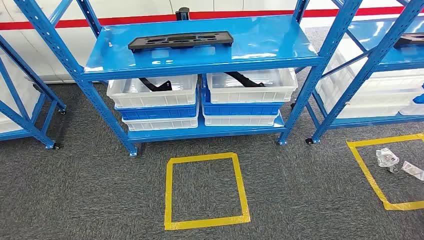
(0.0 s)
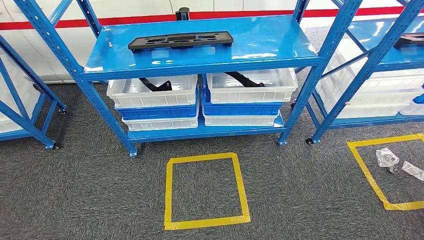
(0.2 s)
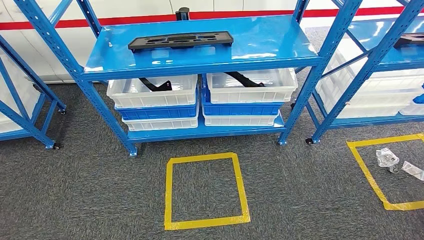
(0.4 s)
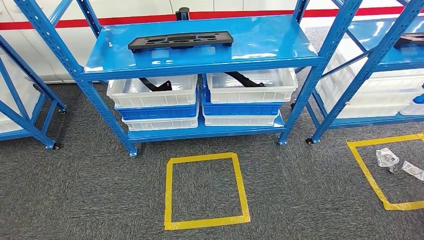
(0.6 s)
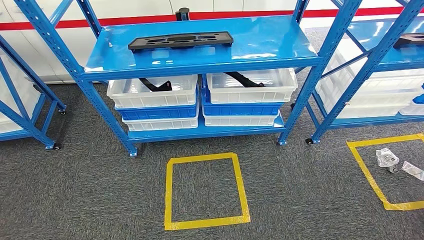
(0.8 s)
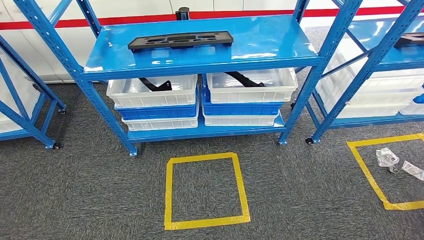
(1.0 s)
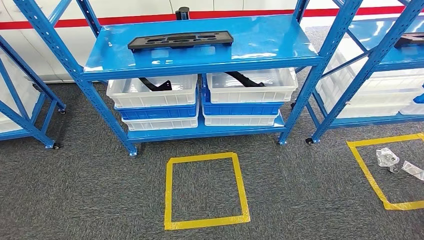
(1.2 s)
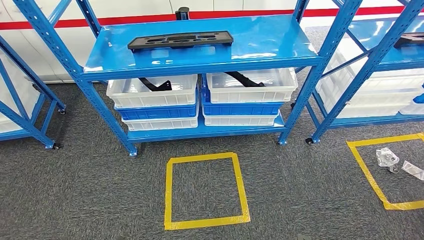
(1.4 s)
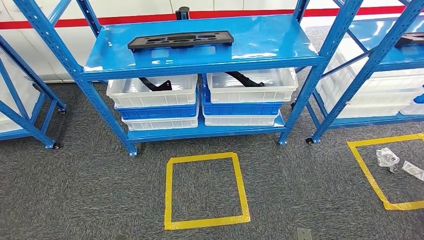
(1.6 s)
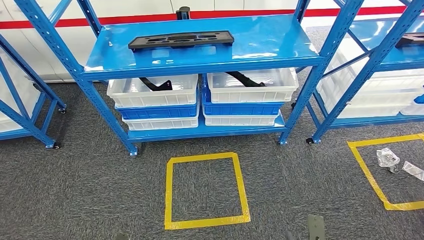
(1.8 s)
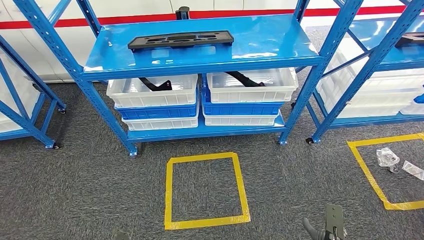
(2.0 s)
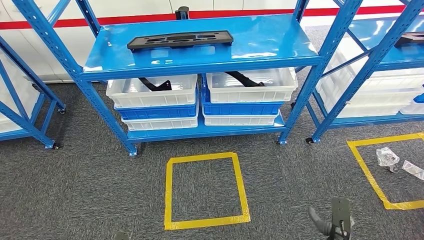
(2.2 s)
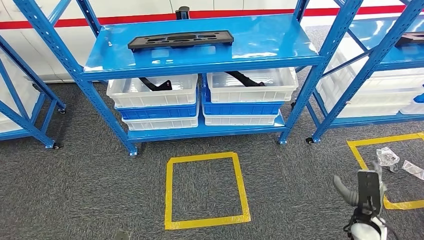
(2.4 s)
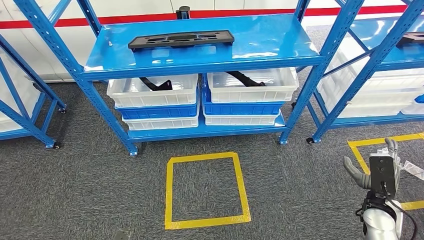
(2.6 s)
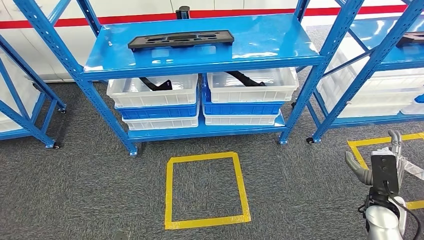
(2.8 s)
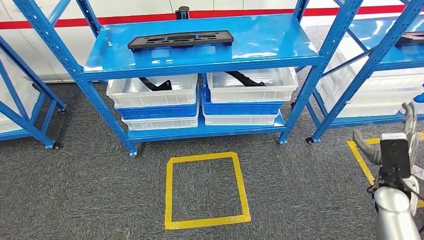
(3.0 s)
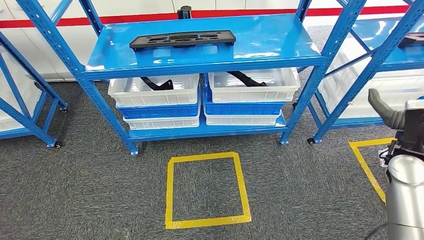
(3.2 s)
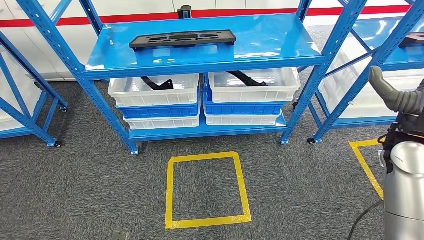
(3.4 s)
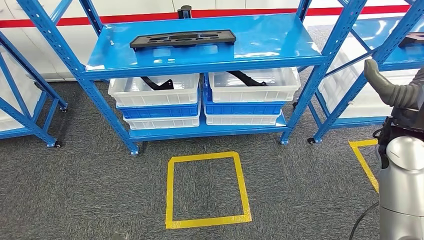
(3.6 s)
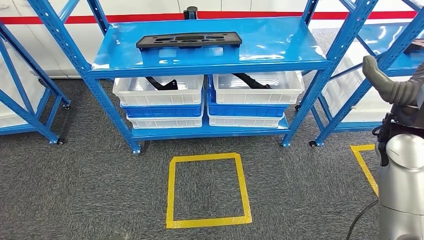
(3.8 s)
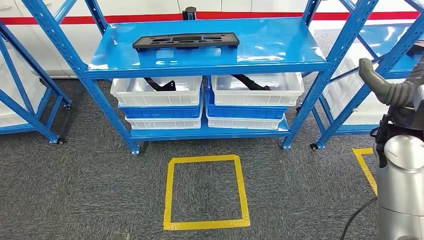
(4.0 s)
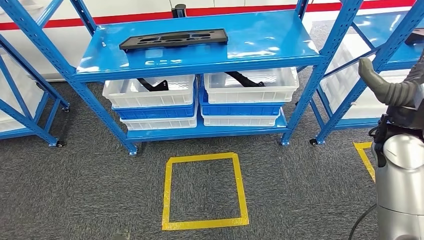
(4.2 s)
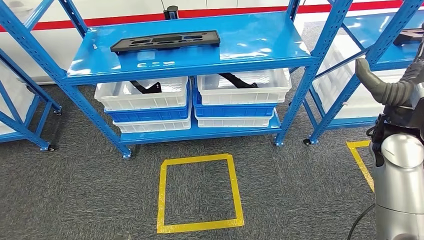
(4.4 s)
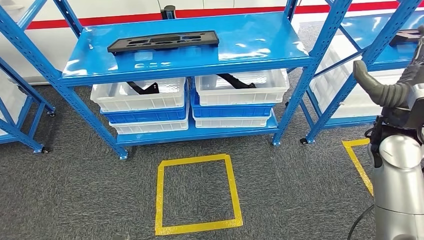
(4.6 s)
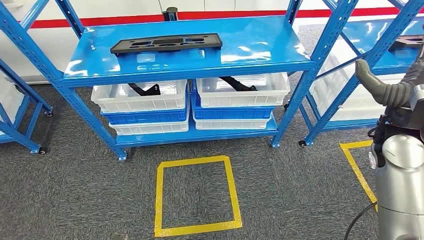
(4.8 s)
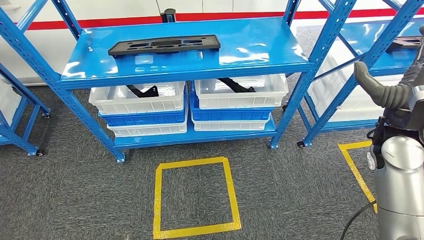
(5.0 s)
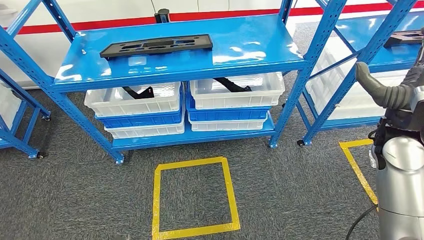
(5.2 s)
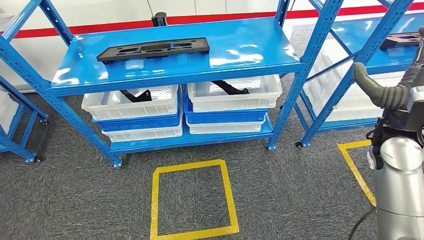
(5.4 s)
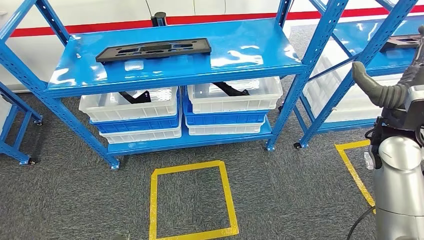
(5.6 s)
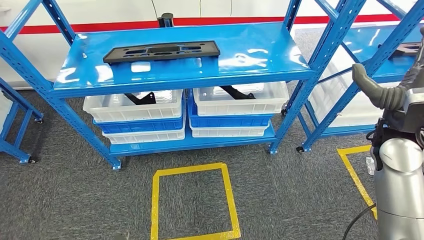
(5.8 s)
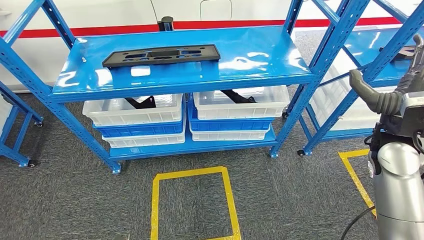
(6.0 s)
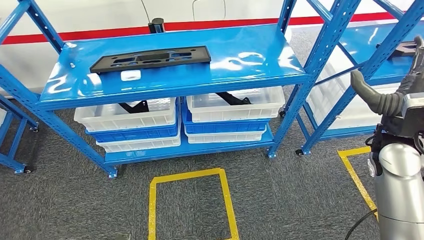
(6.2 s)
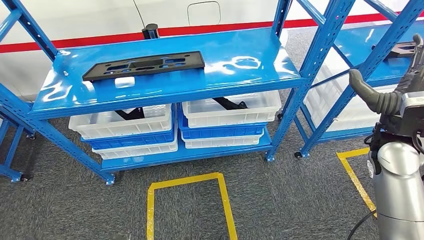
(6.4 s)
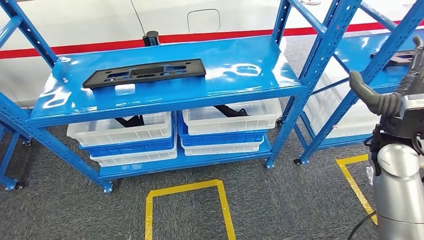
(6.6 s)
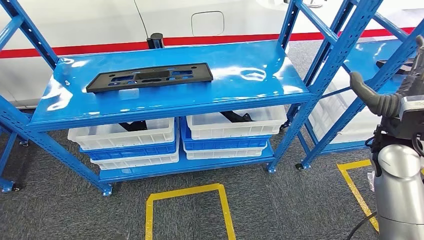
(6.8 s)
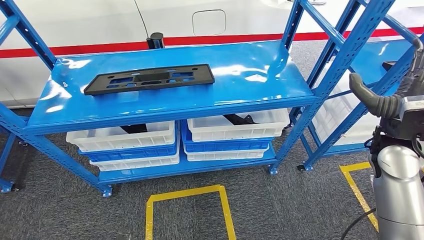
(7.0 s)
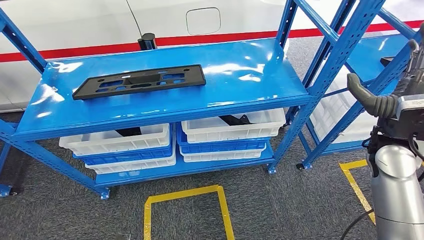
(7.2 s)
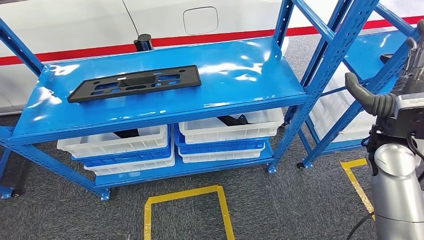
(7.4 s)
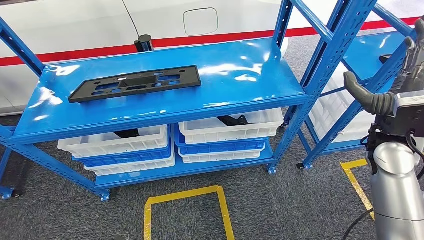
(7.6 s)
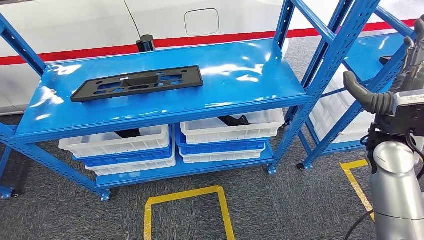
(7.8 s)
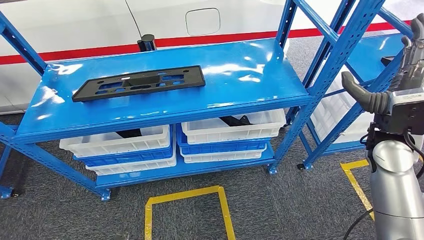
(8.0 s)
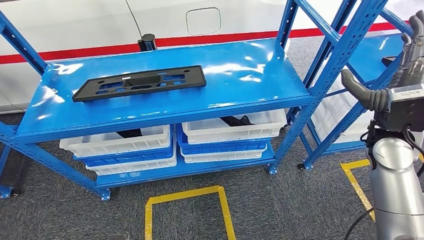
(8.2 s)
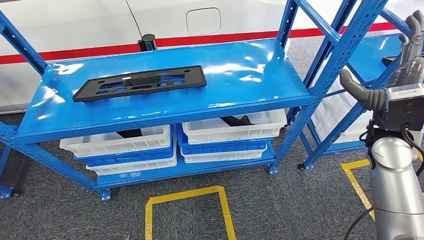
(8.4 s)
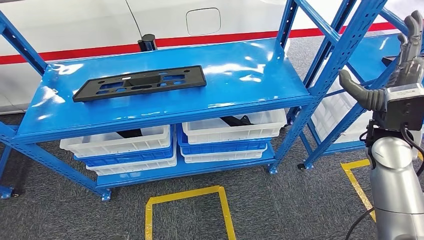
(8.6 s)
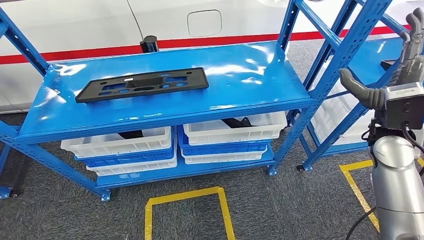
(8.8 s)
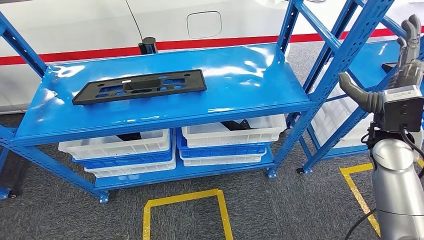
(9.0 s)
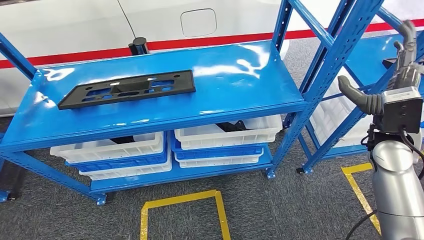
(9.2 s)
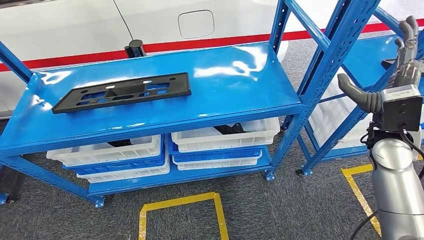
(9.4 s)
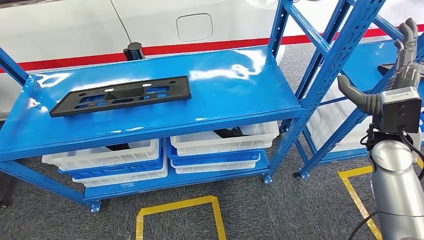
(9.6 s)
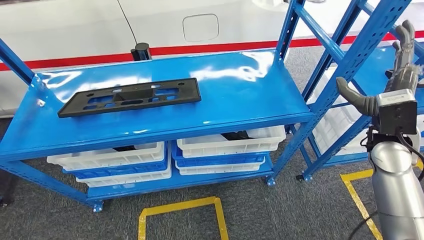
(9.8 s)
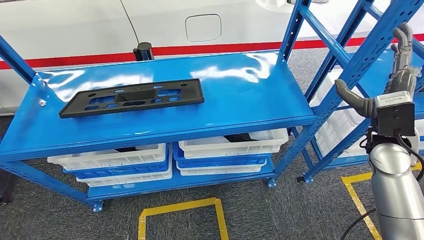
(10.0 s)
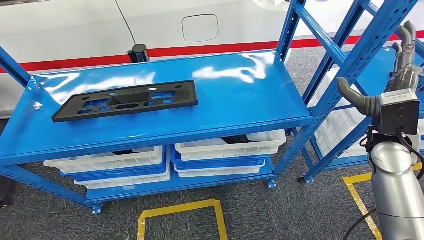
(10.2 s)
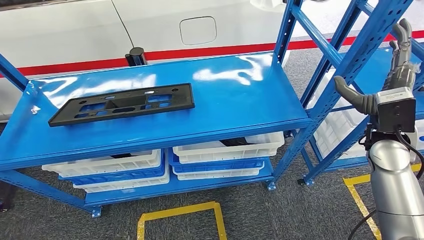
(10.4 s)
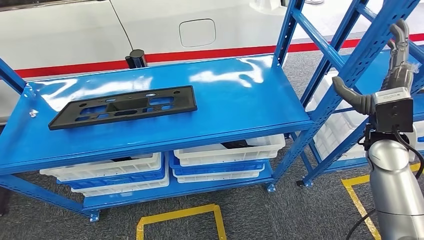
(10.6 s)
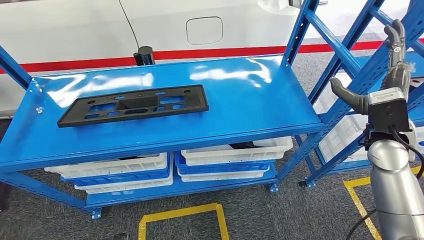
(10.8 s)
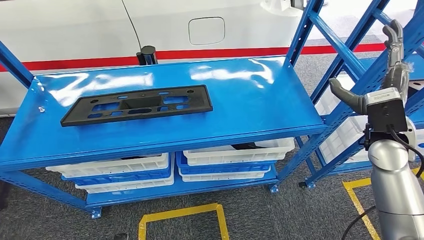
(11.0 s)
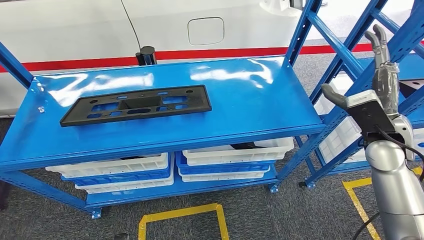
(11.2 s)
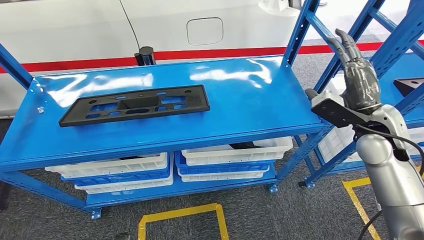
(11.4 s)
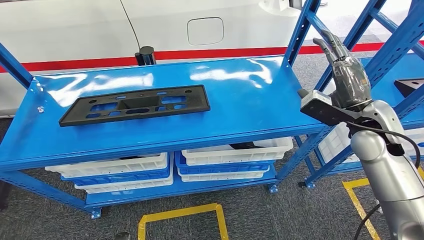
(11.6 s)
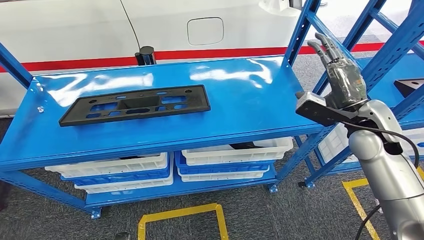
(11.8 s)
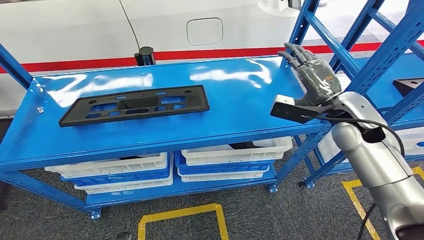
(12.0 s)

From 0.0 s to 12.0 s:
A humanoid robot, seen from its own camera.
From 1.6 s to 3.0 s: The right hand is displaced upward, forward and to the right by some 40 cm.

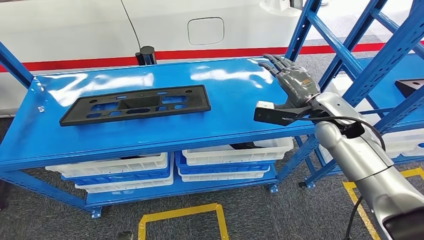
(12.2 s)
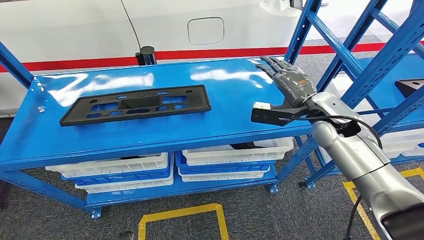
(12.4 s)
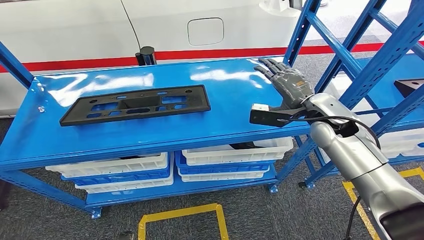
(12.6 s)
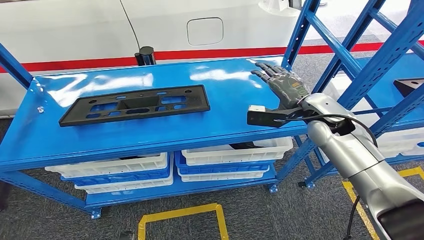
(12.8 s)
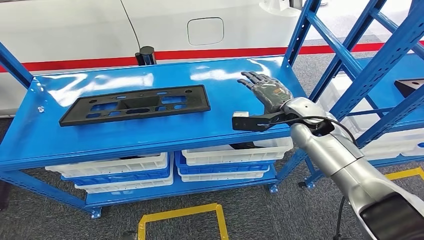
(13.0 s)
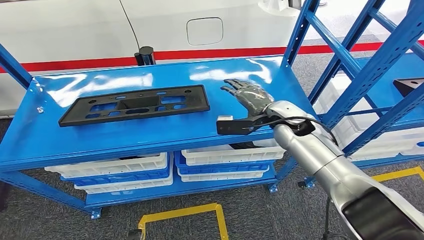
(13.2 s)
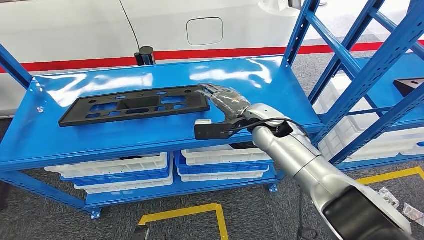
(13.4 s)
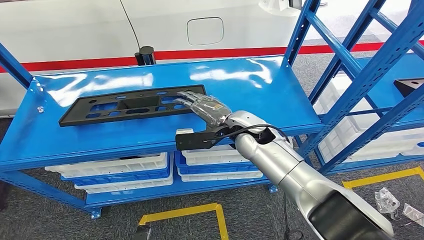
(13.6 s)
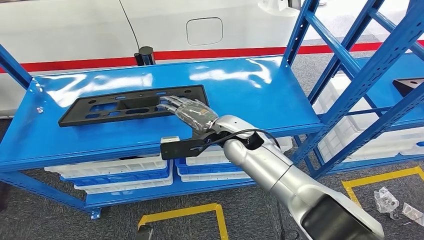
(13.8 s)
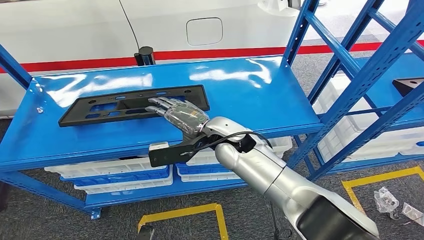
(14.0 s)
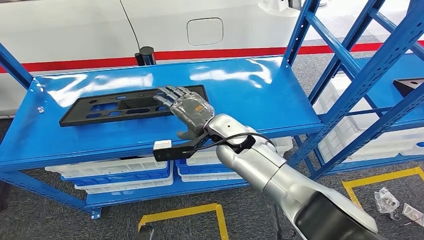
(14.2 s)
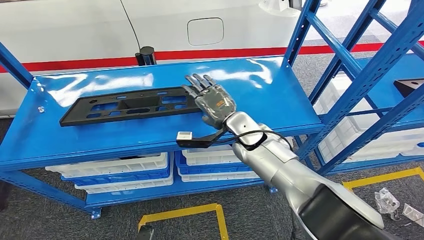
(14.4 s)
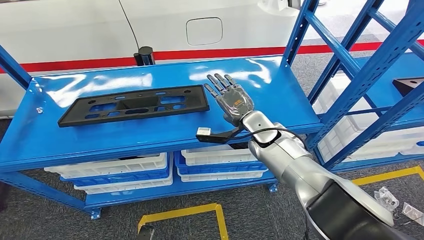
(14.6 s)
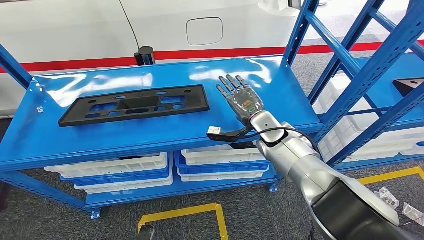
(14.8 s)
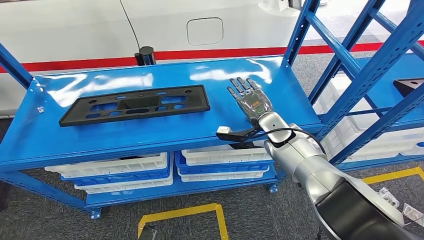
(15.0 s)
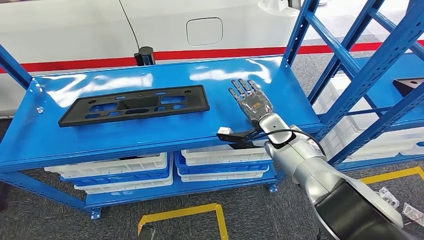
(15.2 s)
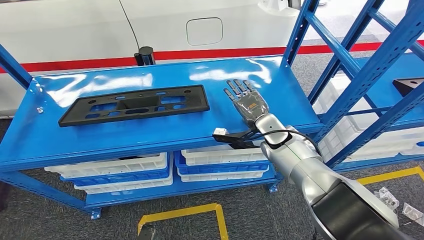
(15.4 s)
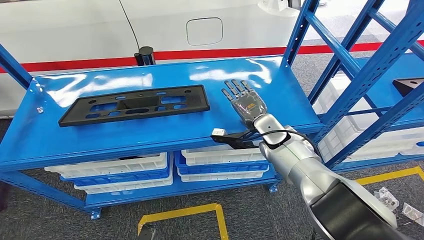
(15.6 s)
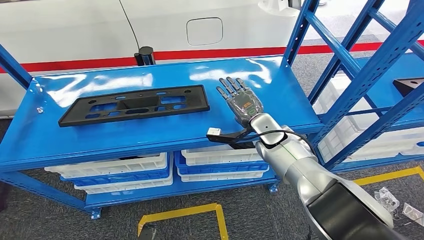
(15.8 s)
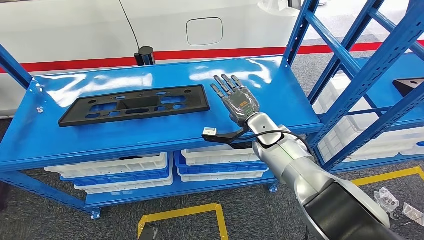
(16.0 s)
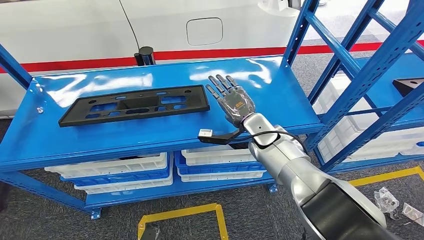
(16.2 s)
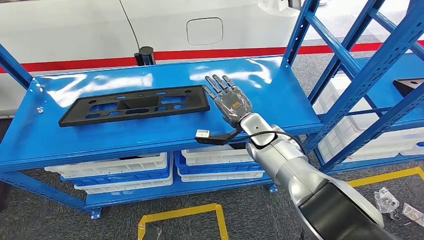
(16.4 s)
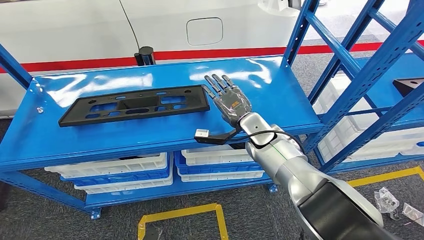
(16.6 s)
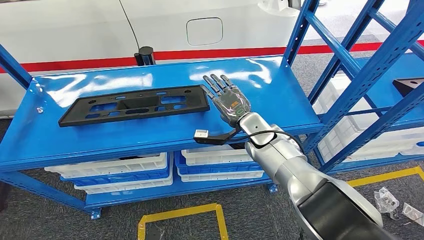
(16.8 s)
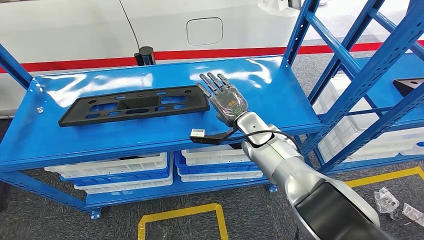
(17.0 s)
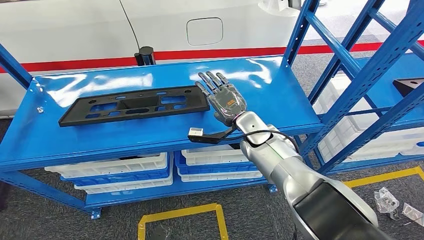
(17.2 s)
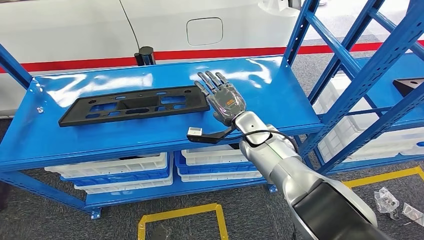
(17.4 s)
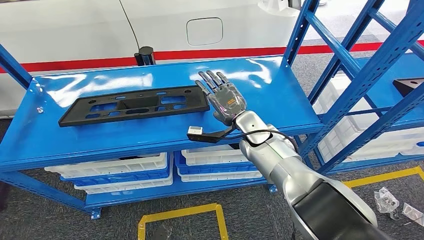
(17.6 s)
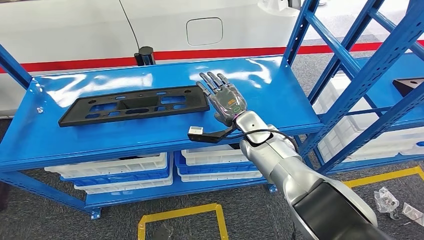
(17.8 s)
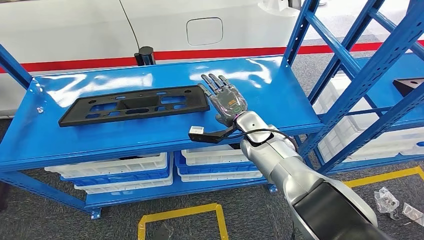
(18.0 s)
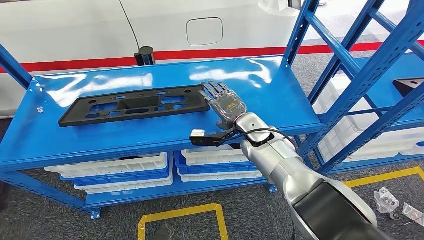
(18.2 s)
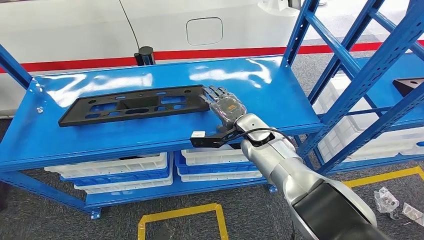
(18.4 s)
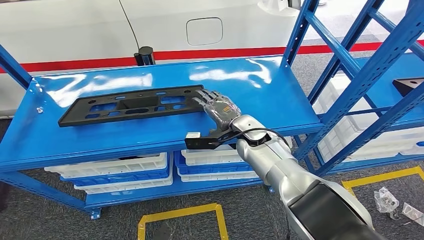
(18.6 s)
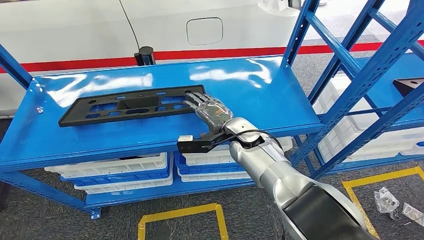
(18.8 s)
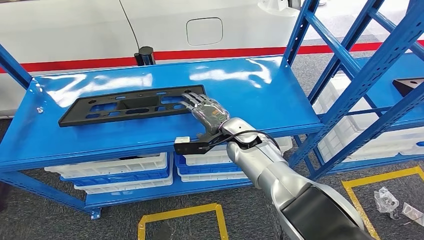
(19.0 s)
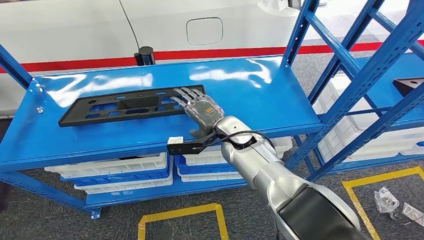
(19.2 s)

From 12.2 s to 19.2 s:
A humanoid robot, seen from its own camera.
From 12.2 s to 13.6 s: The right hand moves to the left, about 20 cm.
From 13.6 s to 15.0 s: The right hand moves to the right and downward, roughly 10 cm.
From 15.0 s to 16.4 s: The right hand moves to the left, approximately 5 cm.
From 16.4 s to 17.8 s: There are only small adjustments of the hands.
From 17.8 s to 19.2 s: The right hand shifts by approximately 5 cm.
